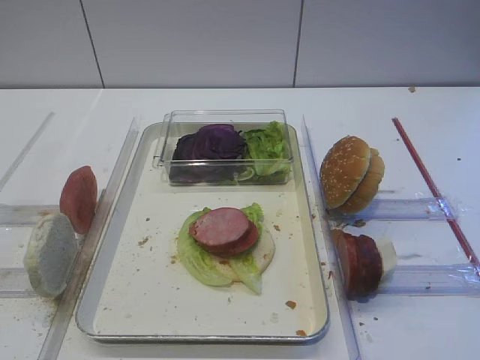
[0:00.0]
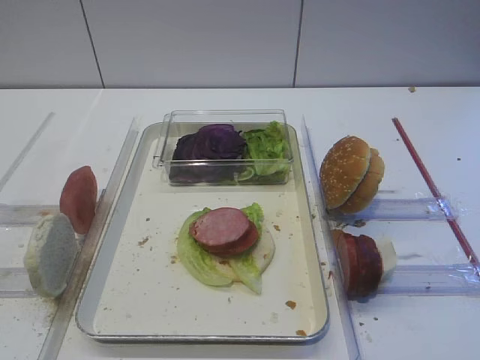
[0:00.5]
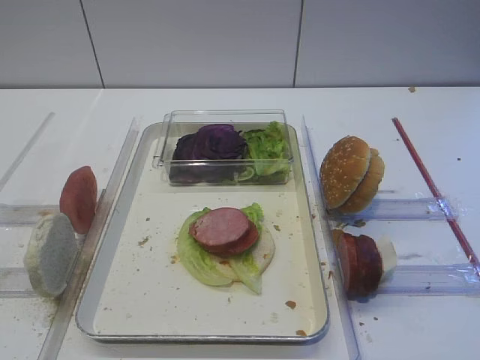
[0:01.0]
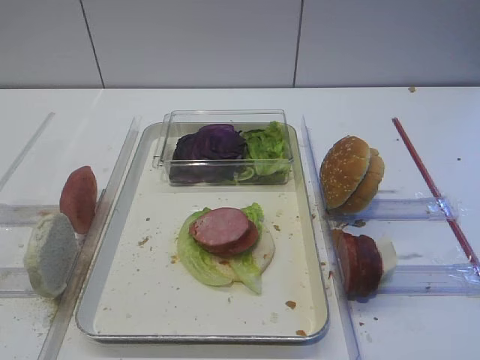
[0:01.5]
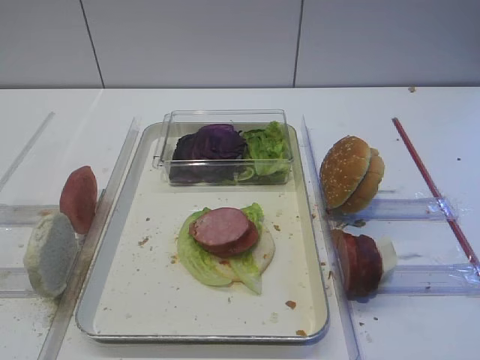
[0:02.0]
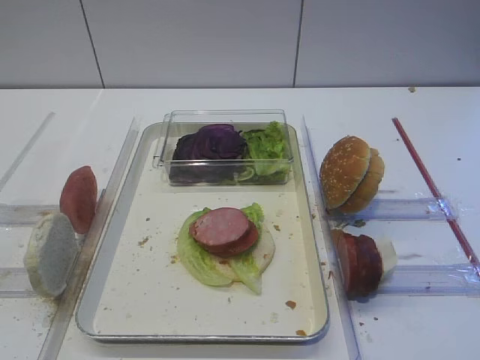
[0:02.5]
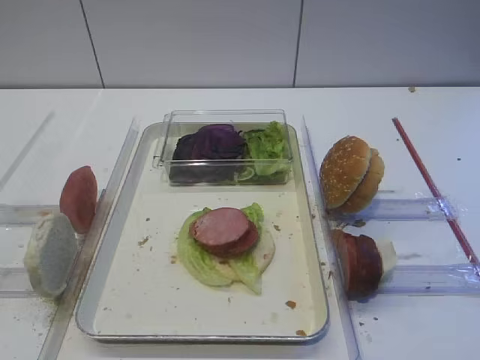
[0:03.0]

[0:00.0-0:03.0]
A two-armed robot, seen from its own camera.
0:00.0 to 0:03.0: Neither gripper changes place.

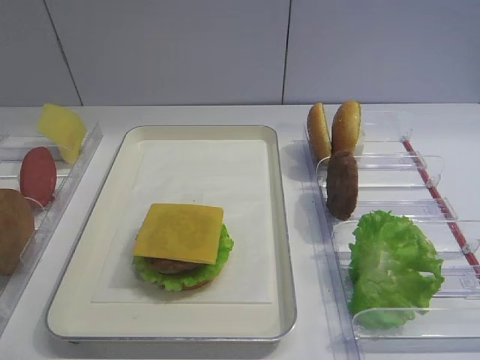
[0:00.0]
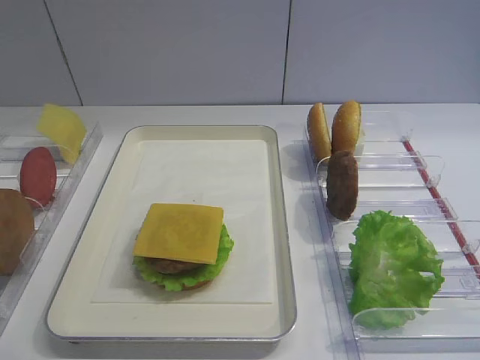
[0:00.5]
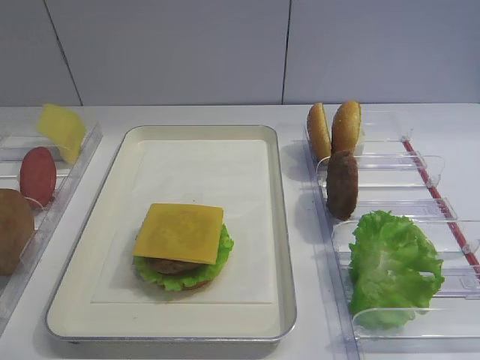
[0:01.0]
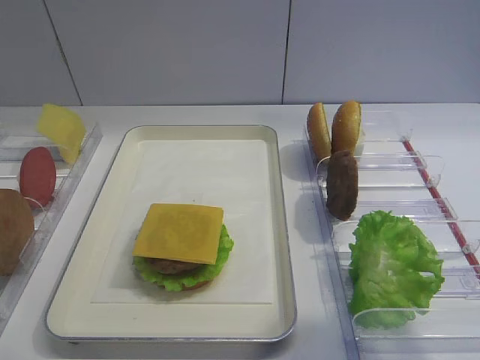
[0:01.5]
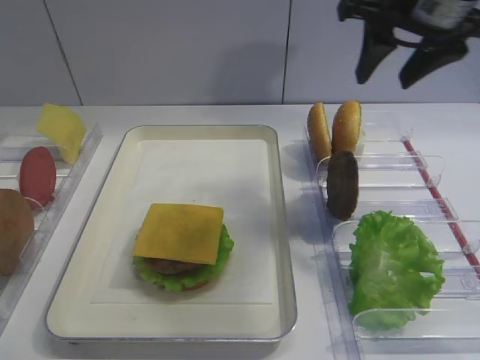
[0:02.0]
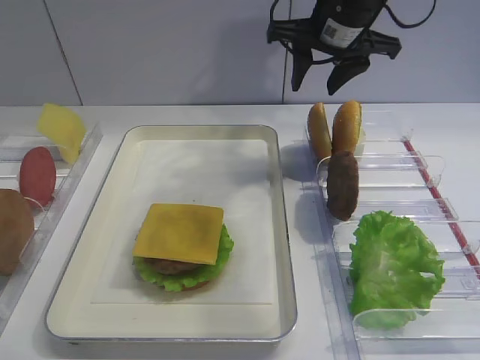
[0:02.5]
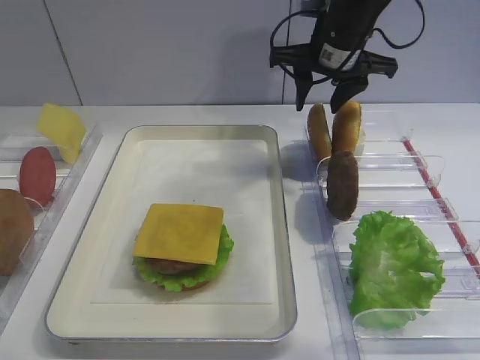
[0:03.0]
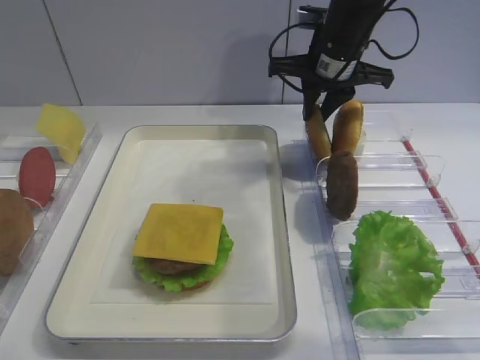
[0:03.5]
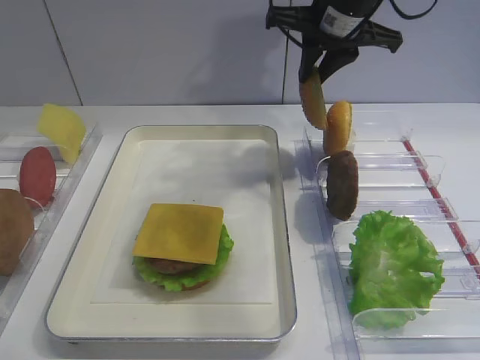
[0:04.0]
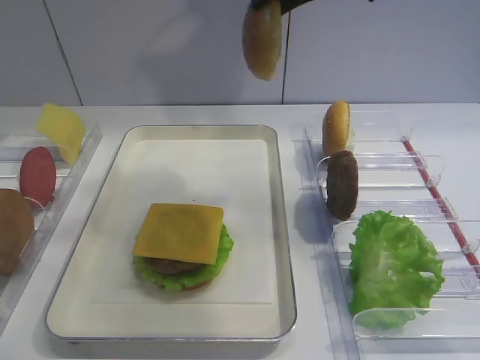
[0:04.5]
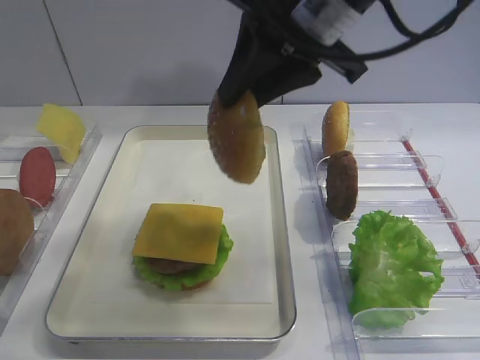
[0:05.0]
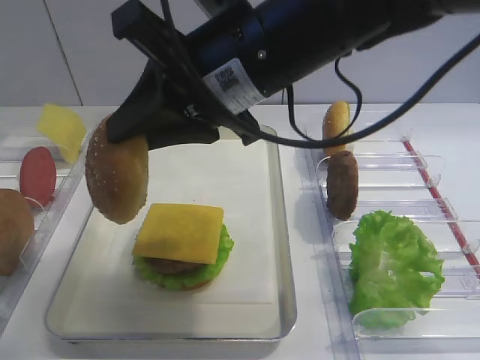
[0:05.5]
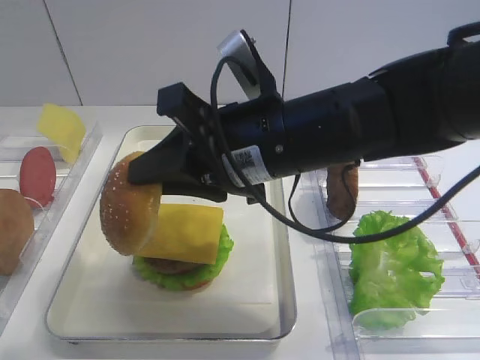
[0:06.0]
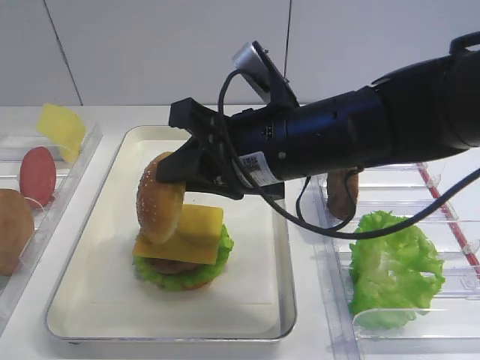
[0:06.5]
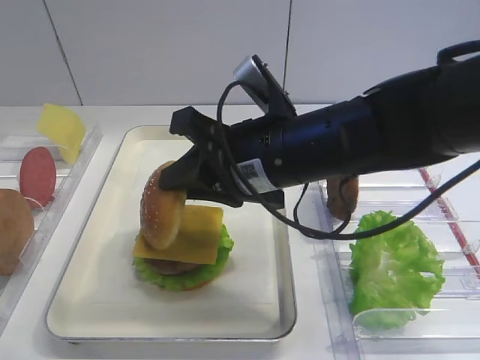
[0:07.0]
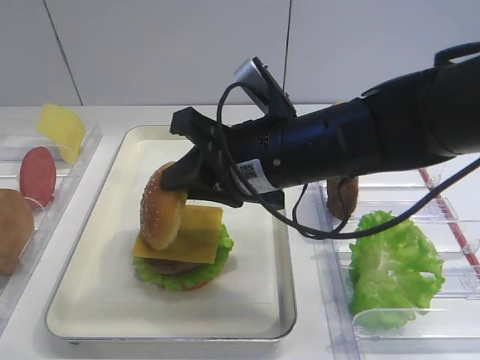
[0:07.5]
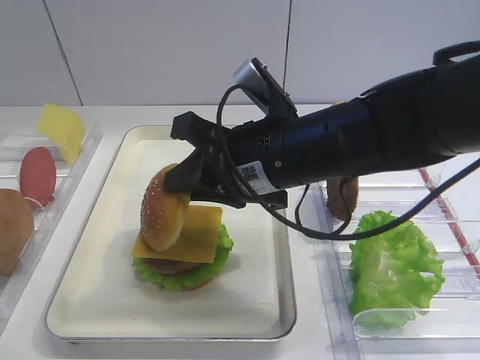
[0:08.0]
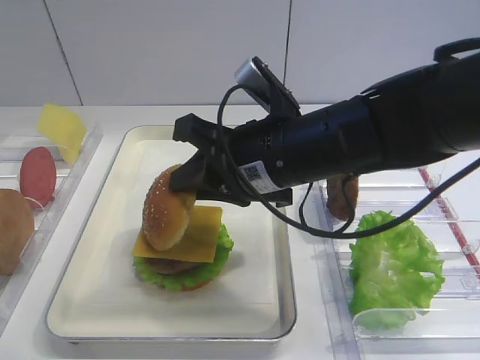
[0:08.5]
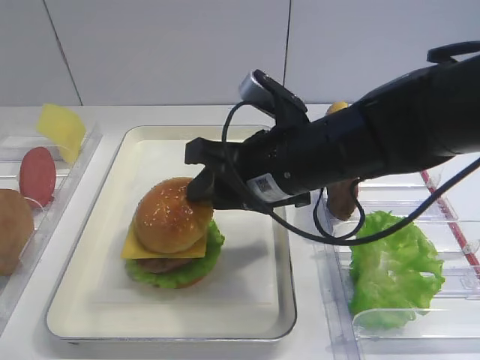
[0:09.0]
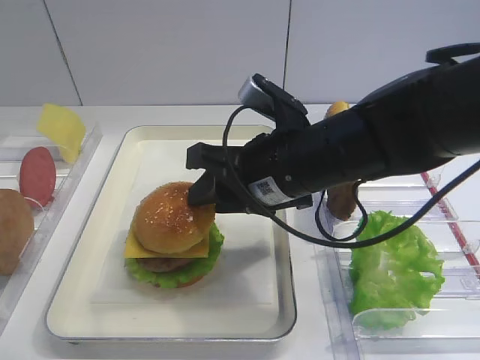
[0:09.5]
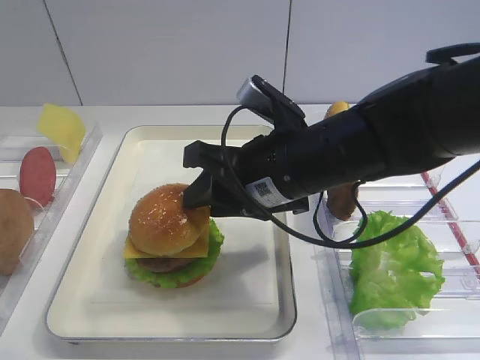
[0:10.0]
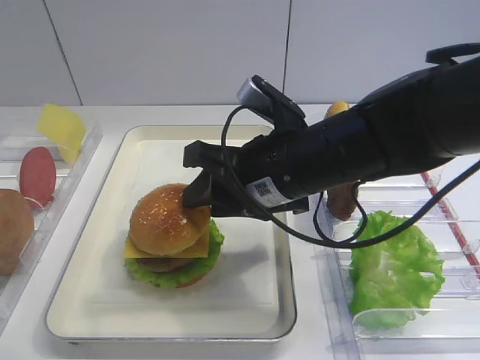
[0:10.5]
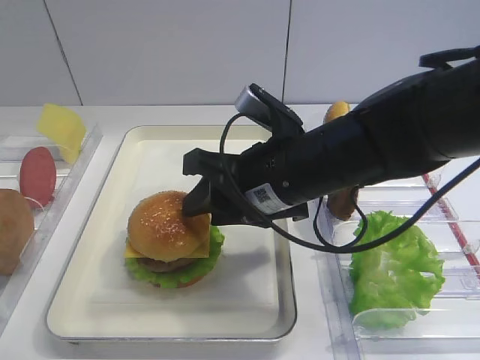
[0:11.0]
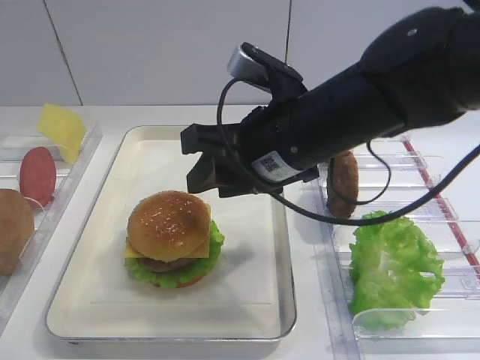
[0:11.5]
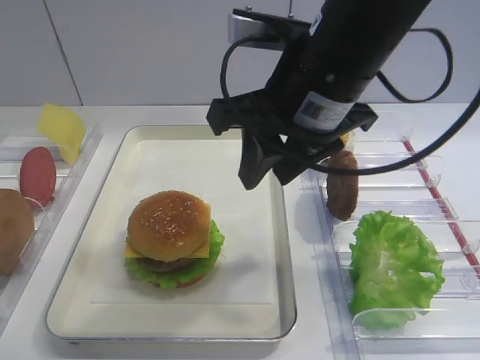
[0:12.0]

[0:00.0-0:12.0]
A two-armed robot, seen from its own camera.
Step, 0:00.0 to 0:04.0: Pick up the hamburger lid with the right gripper.
Step, 0:04.5 to 0:11.5: Place the hamburger lid on the cheese slice with the right gripper.
0:02.0 to 0:04.0: The right gripper travels forward and to the left by some 10 cm, and closes.
0:04.0 to 0:06.0: The right gripper travels backward and to the left by approximately 20 cm.
0:08.0 to 0:10.0: The right gripper opens its fingers.
0:10.0 to 0:12.0: The right gripper travels upward by roughly 10 cm.

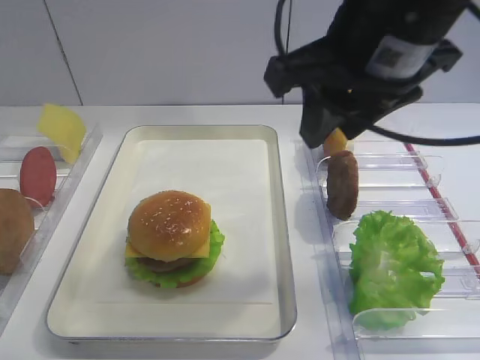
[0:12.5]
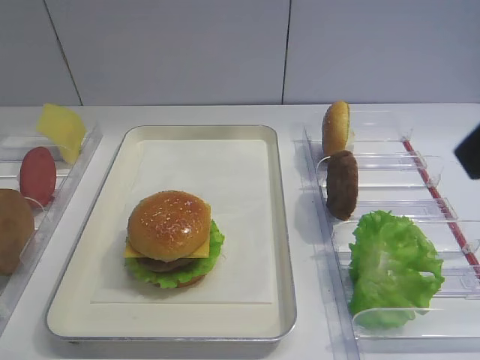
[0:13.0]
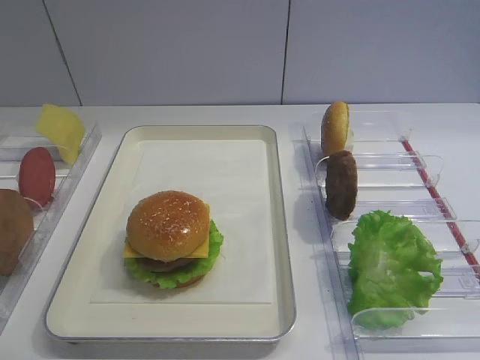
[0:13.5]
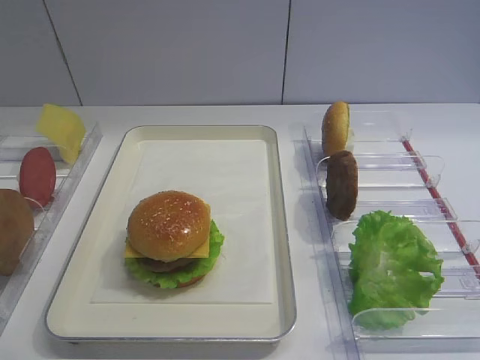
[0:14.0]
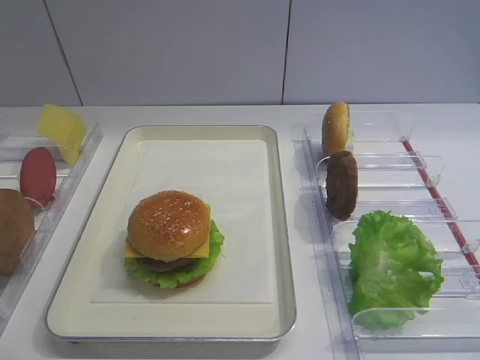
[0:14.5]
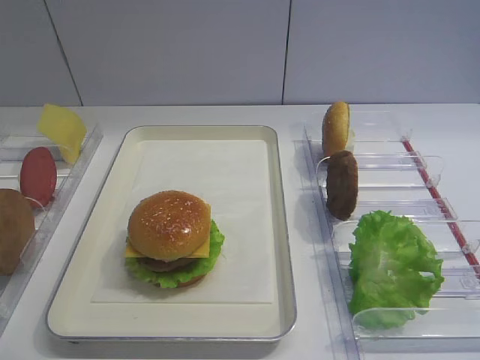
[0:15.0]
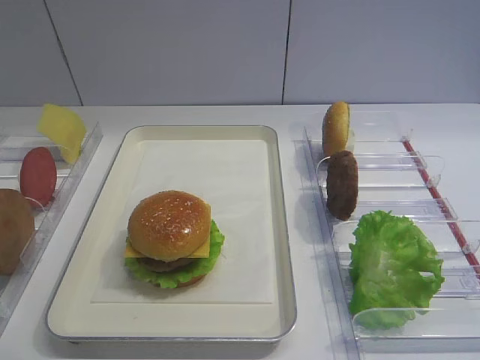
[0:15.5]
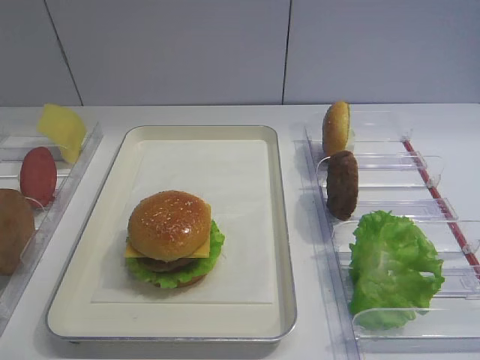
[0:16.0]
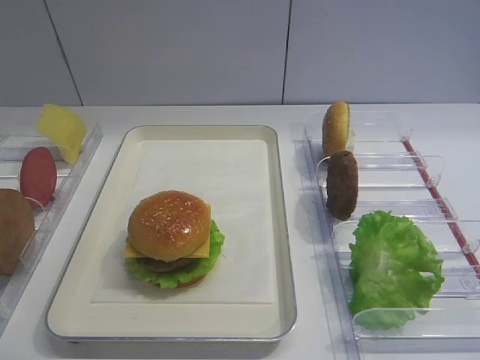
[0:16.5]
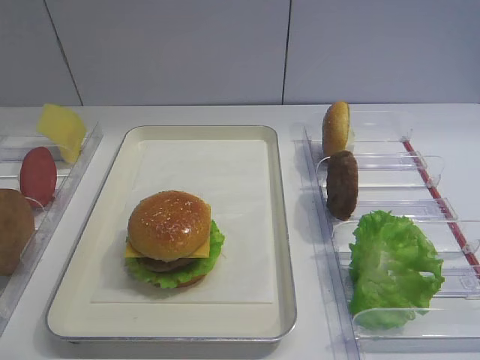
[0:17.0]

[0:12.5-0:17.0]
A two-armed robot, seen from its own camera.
0:12.5 to 0:14.5: The right gripper heads backward and to the right, covering about 30 cm.
0:14.5 to 0:17.0: Both grippers stay about where they are.

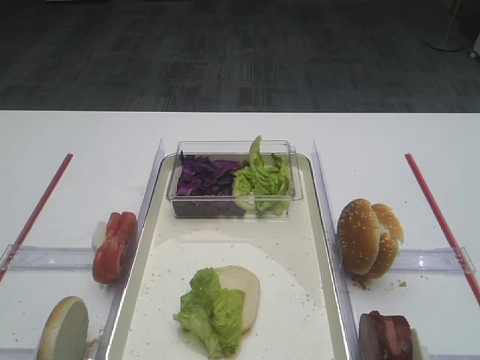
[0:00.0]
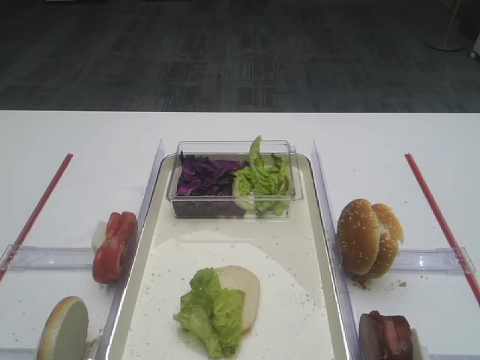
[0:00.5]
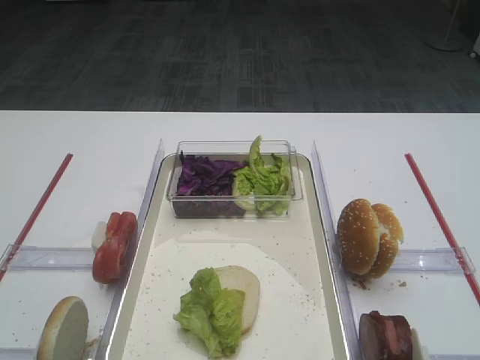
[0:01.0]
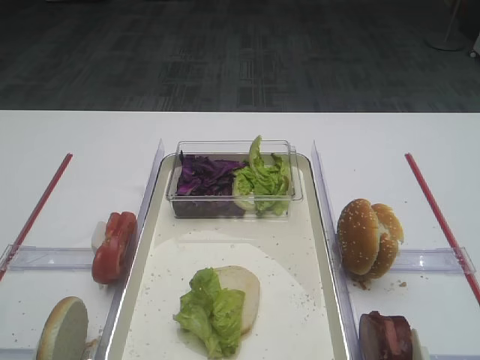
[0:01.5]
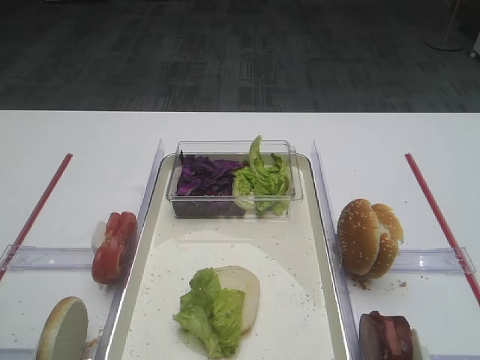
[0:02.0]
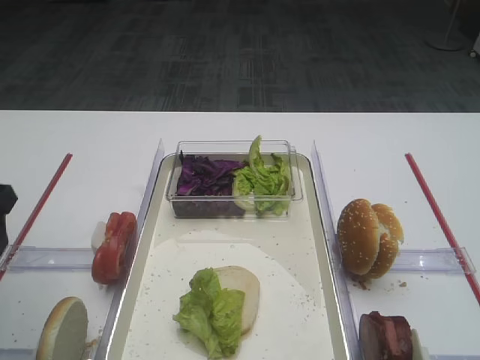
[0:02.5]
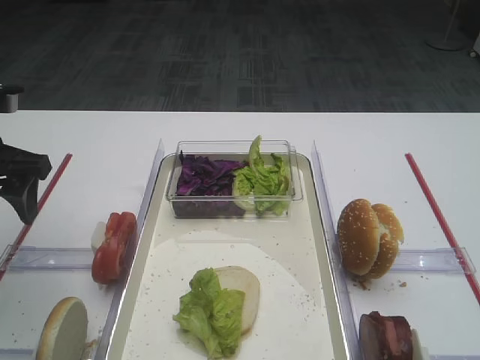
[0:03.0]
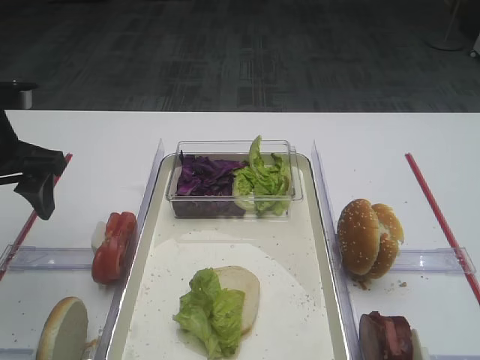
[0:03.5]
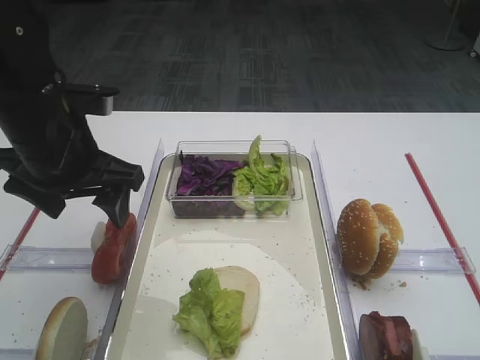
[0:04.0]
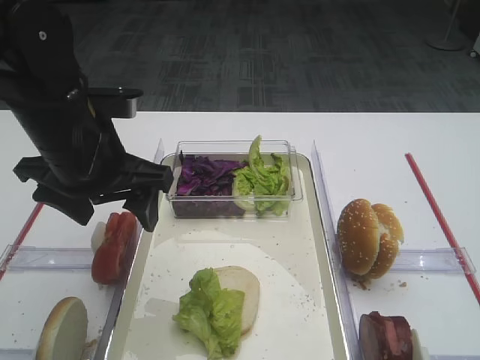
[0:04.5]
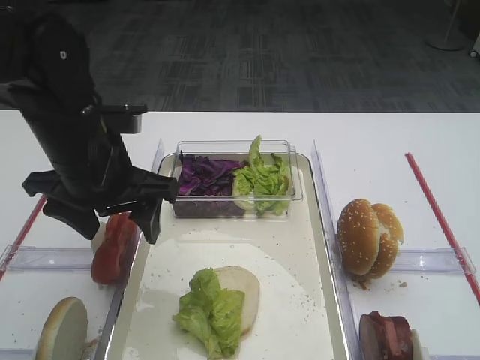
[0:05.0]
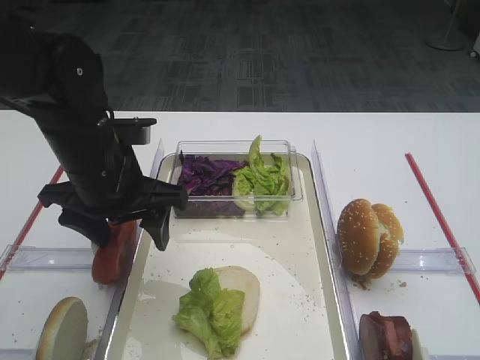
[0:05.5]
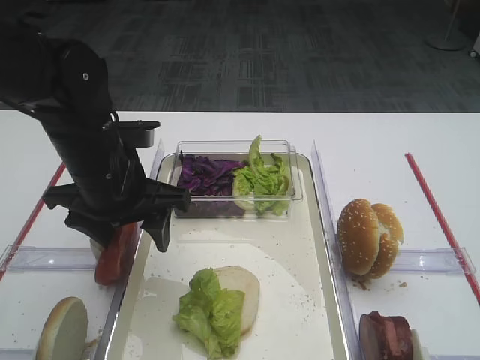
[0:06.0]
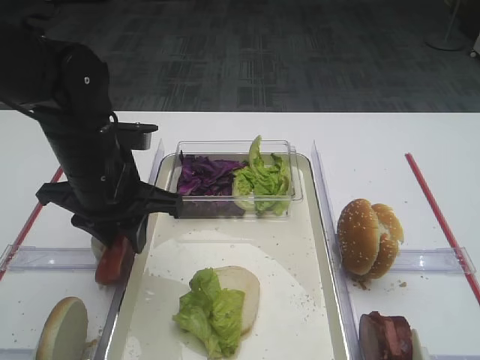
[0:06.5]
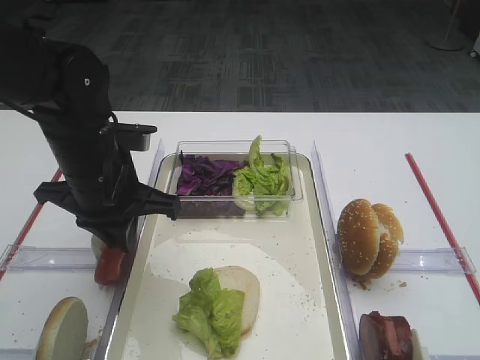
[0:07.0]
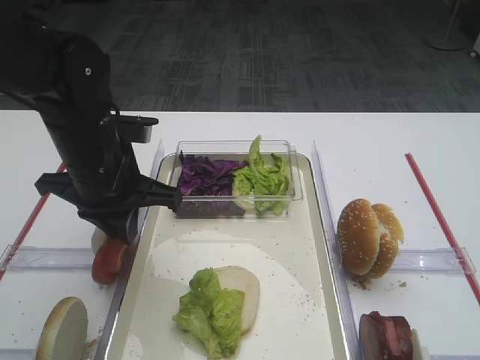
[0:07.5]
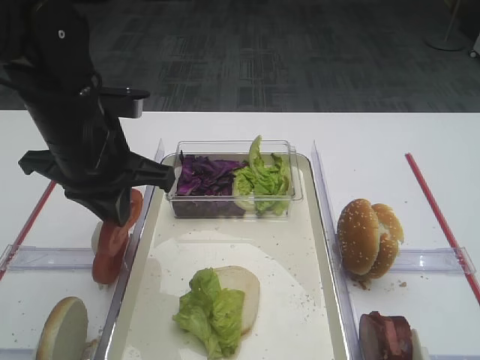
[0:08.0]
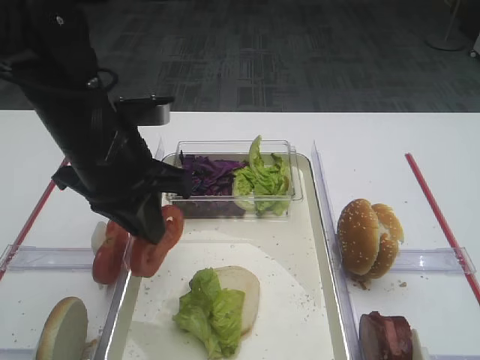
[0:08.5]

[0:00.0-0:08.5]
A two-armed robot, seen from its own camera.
Step, 0:00.0 to 0:08.0: Pick up the tomato slice with the left gripper.
0:02.0 to 0:04.0: The left gripper is displaced forward and to the right by some 20 cm.
0:04.0 to 0:06.5: The left gripper moves some 5 cm, and closes its fingers.
0:06.5 to 0:08.5: The left gripper shifts by some 5 cm, and closes up.
